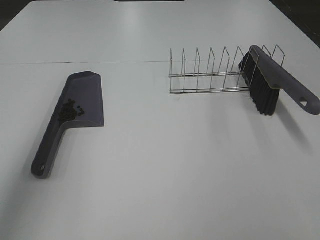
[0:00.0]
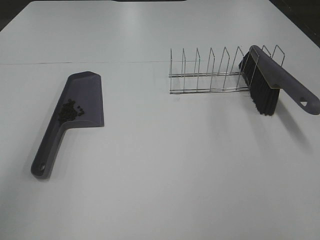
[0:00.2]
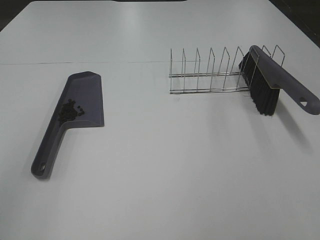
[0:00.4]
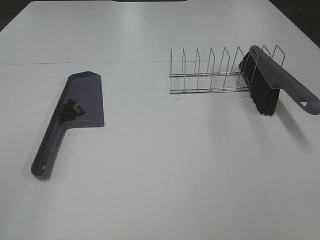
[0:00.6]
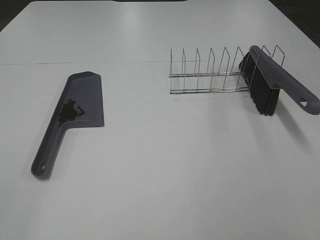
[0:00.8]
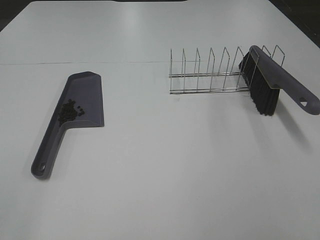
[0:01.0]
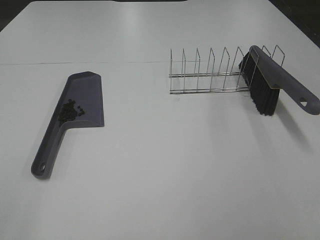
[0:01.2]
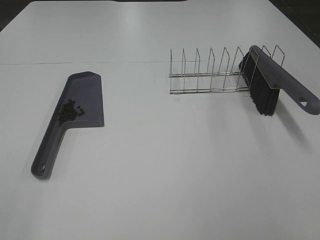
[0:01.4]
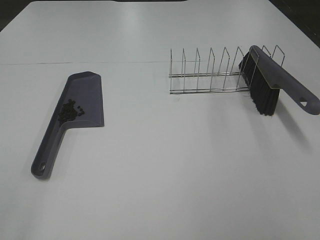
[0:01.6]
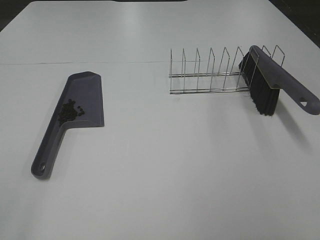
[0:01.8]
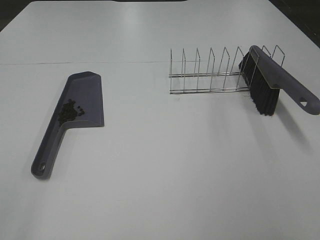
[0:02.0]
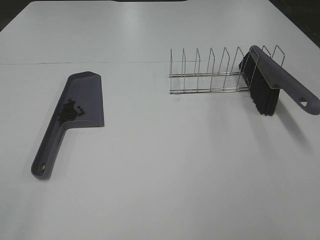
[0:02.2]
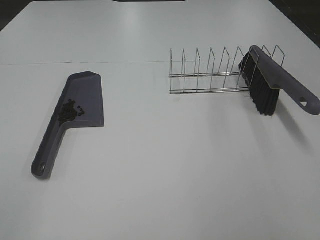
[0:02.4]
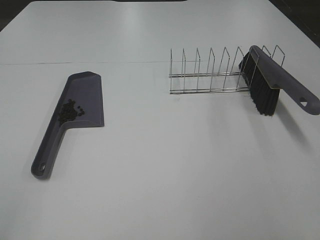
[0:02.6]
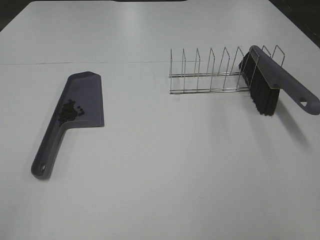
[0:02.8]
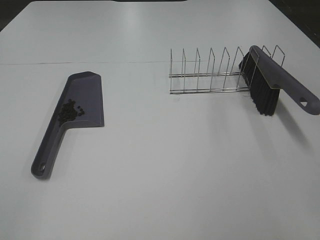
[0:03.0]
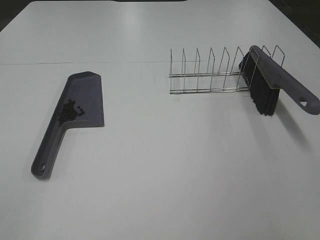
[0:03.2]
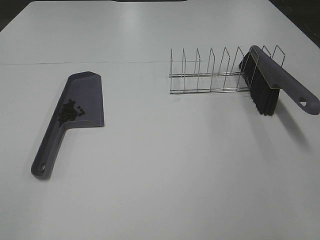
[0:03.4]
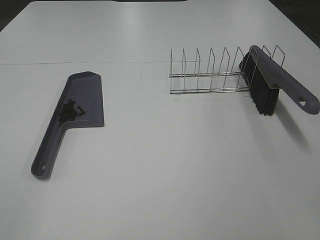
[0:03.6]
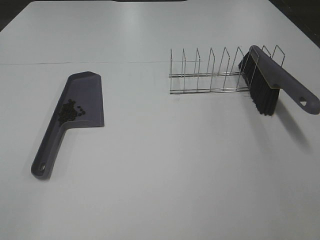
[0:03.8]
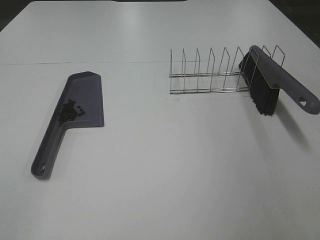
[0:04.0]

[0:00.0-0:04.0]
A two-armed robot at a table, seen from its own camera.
Task of the whole recording: Sweep Coffee Bean.
0:00.0 to 0:01.4: The left gripper moves backward and downward, roughly 25 cm.
0:02.6 to 0:04.0: Both grippers stay about where they are.

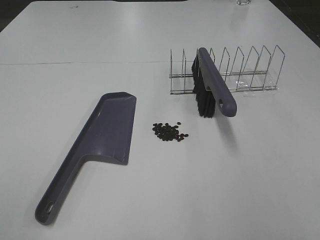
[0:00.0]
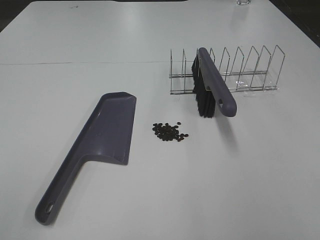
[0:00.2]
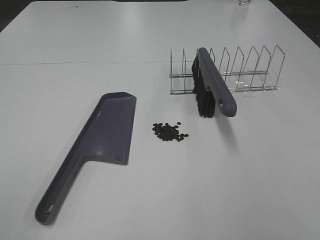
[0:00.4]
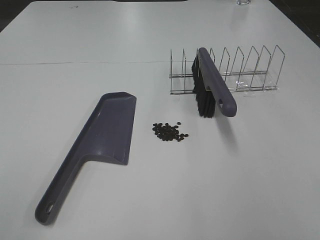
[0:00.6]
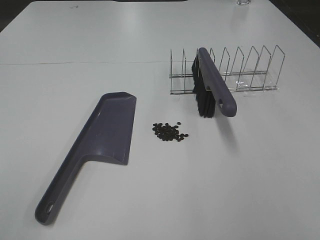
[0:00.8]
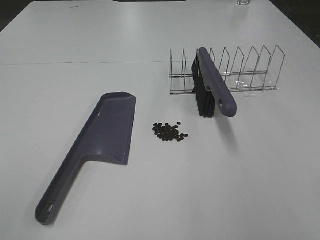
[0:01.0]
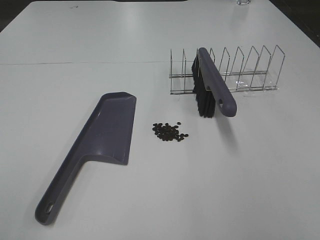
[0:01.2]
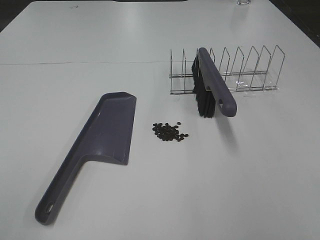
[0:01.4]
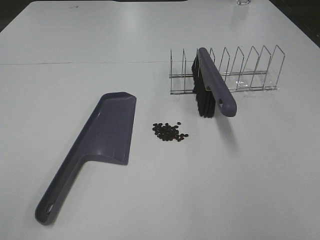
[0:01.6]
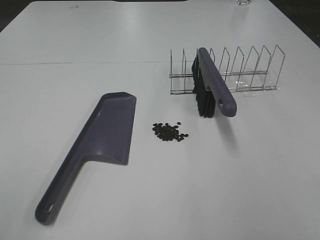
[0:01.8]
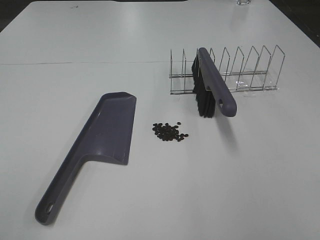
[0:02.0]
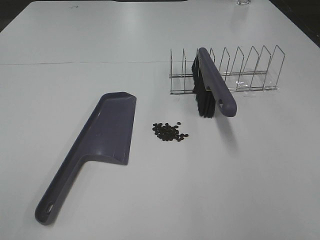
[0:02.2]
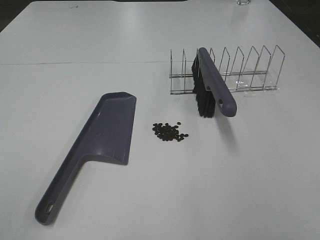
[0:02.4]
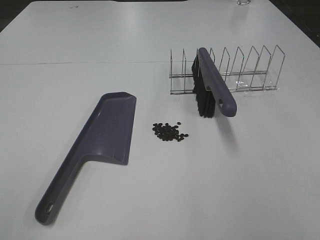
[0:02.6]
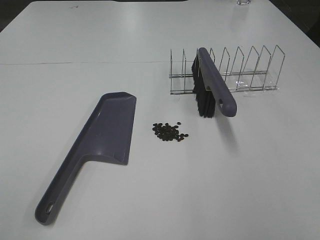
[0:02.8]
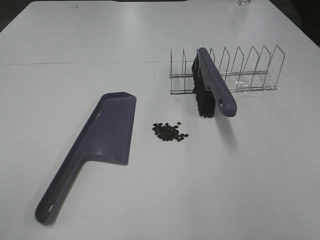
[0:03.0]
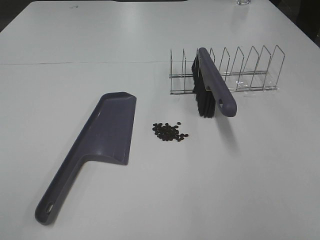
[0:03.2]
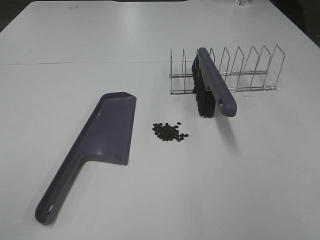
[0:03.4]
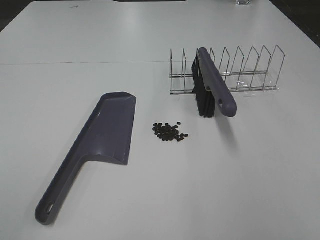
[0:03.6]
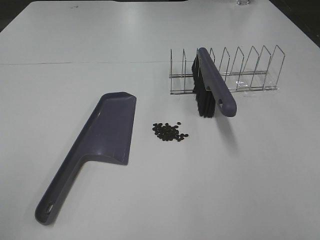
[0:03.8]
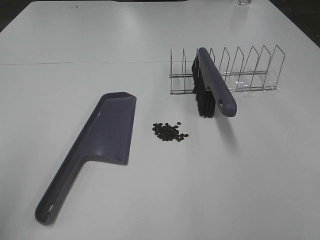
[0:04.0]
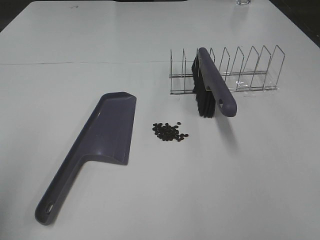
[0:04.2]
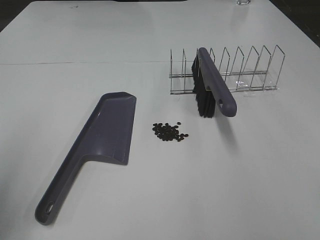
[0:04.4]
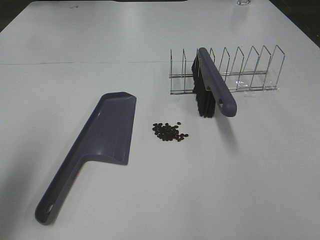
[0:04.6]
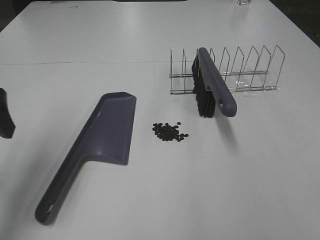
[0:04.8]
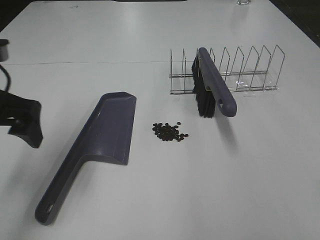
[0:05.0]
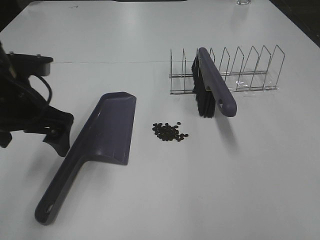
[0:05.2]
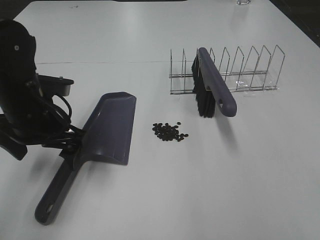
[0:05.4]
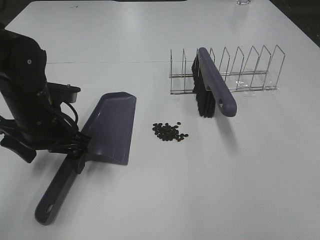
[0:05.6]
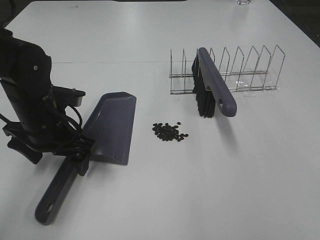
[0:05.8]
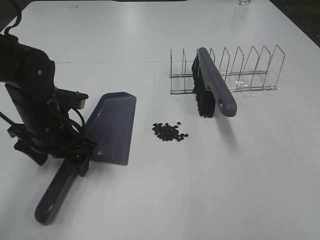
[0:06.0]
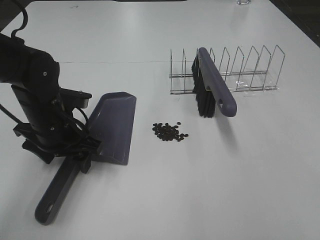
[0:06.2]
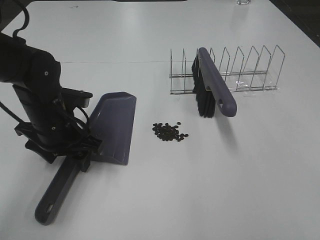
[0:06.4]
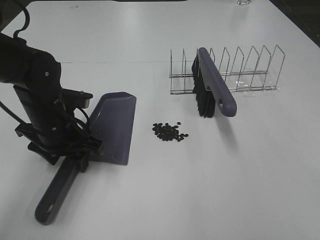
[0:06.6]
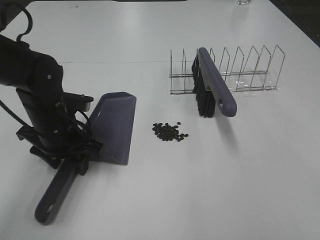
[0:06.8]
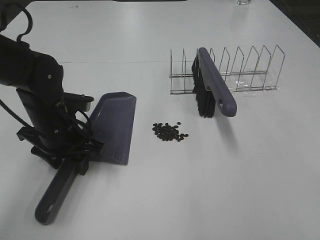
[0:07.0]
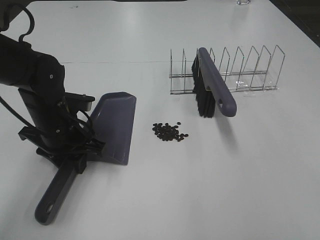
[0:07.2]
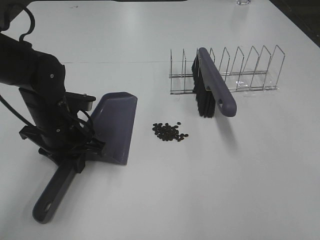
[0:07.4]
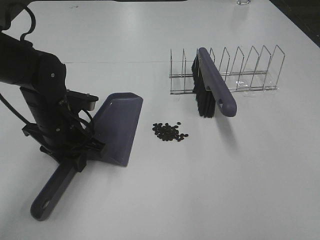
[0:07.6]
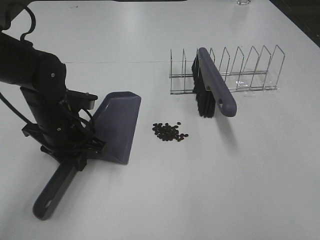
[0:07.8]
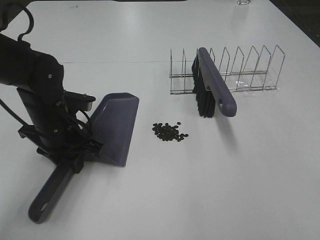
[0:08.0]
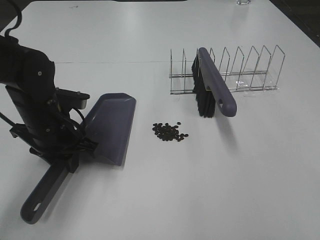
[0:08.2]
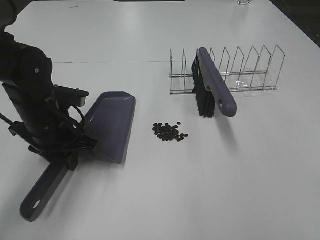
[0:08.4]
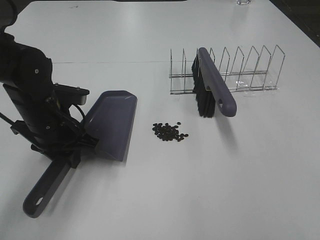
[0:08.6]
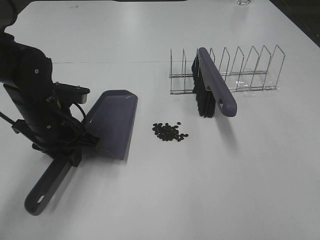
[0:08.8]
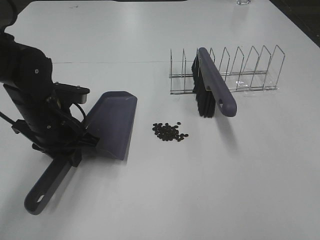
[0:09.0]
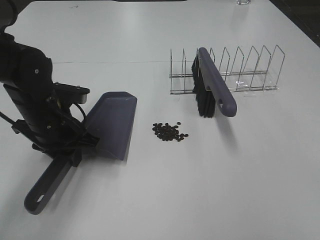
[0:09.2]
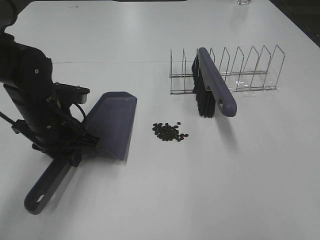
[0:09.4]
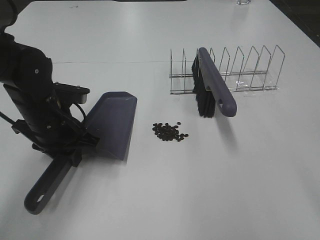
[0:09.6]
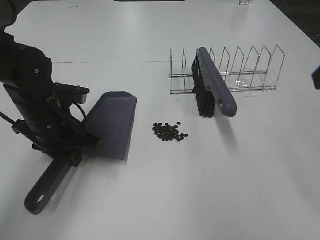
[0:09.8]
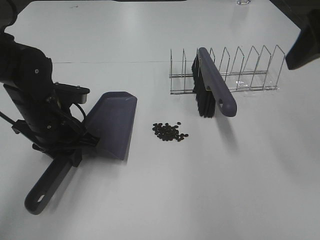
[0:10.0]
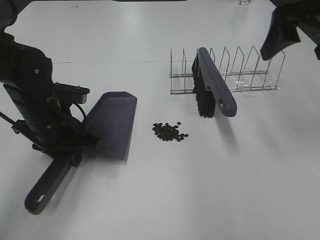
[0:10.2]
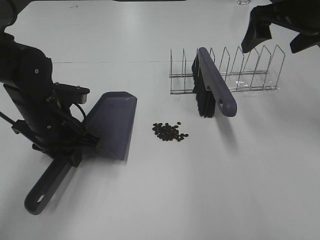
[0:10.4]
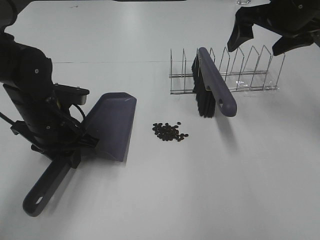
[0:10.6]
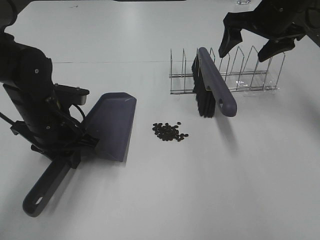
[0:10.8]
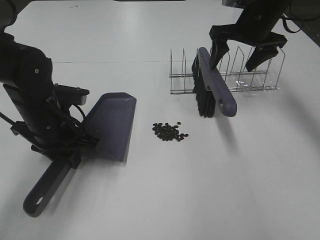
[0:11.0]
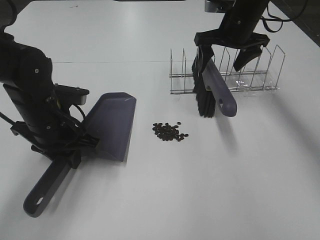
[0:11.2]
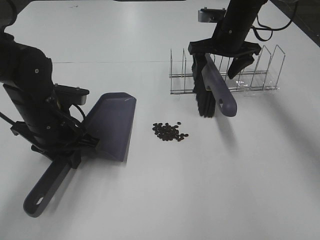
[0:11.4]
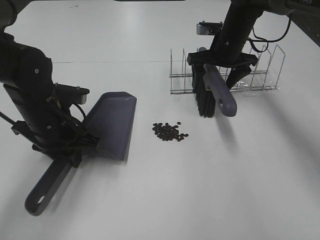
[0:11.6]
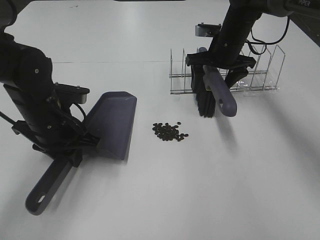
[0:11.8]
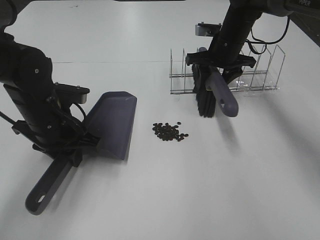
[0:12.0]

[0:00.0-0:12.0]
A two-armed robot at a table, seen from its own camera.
Task of the whole recording: Sweep Coffee Bean.
Step, 0:00.0 to 0:07.2: Left hand: grab the dustpan.
Step, 0:08.8 to 0:12.0: Right hand:grab the broom.
0:00.0 to 0:03.0: Both grippers stay put.
0:03.0 to 0:04.4: The left gripper moves forward, roughly 15 cm.
0:04.4 to 0:06.0: The left gripper heads downward, to the right and forward, covering roughly 25 cm.
0:06.0 to 0:07.6: The left gripper closes up.
0:07.6 to 0:09.0: The grippers make only small movements.
0:09.0 to 0:10.4: The right gripper shifts about 35 cm forward, and opens its fingers.
0:10.4 to 0:12.0: The right gripper travels downward, forward and to the left by some 20 cm, and closes.

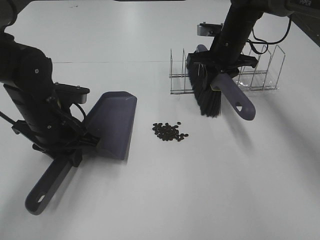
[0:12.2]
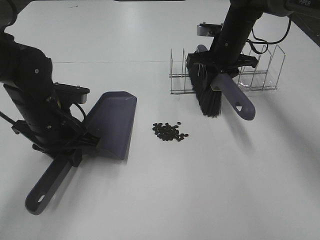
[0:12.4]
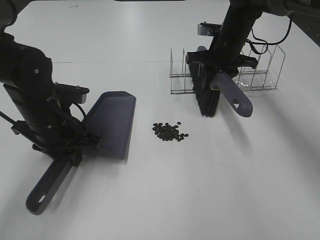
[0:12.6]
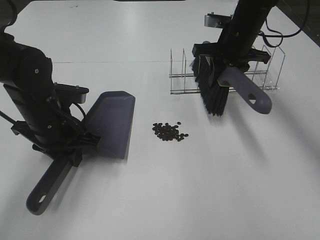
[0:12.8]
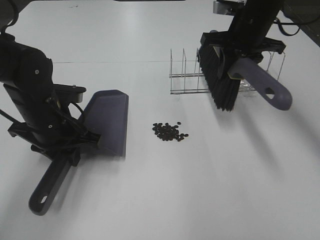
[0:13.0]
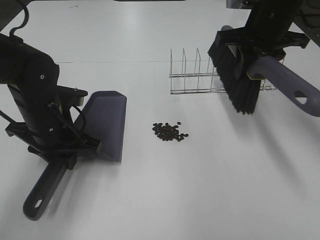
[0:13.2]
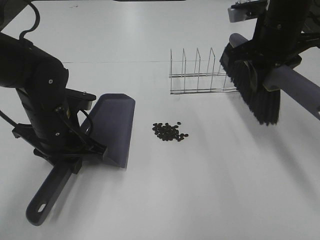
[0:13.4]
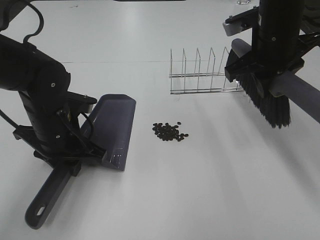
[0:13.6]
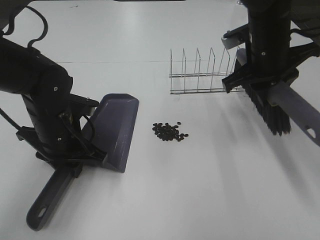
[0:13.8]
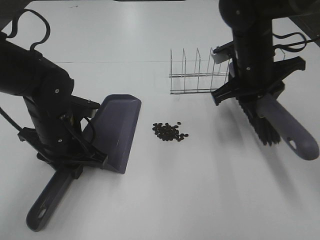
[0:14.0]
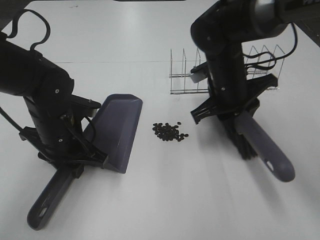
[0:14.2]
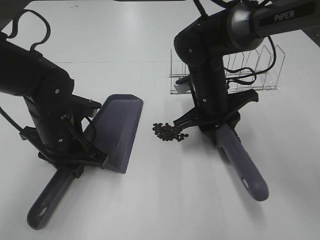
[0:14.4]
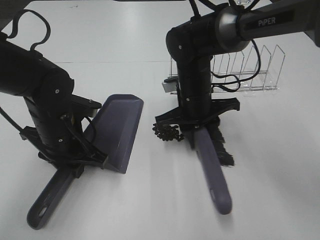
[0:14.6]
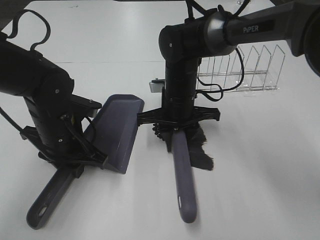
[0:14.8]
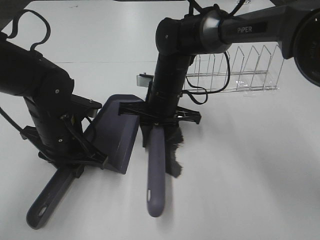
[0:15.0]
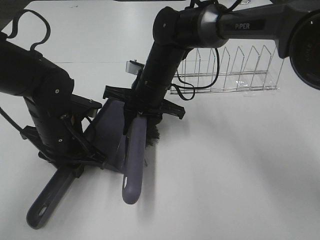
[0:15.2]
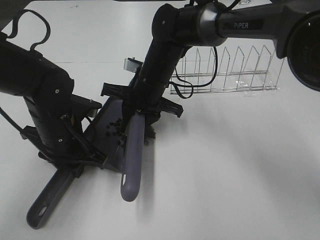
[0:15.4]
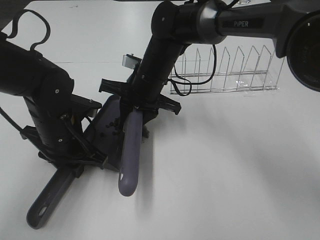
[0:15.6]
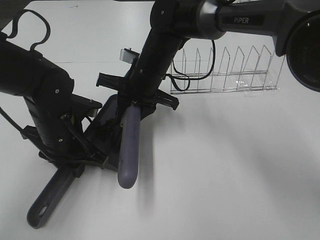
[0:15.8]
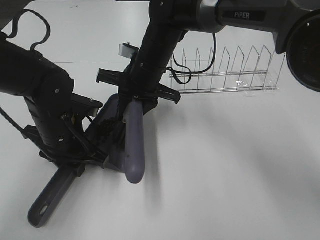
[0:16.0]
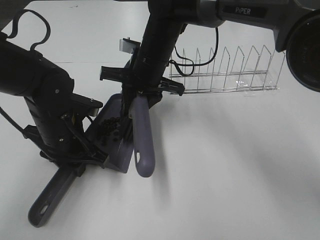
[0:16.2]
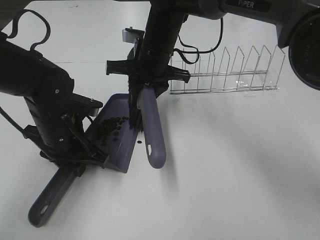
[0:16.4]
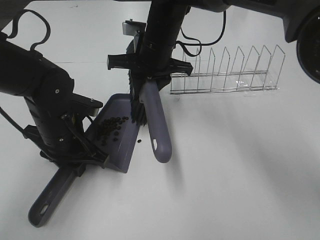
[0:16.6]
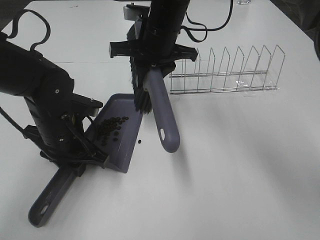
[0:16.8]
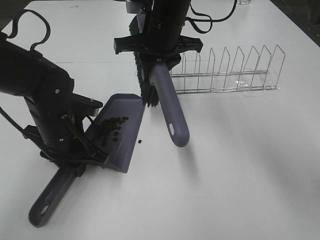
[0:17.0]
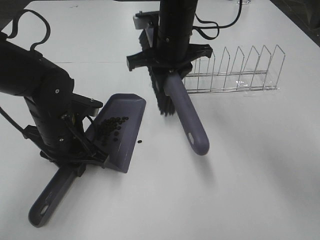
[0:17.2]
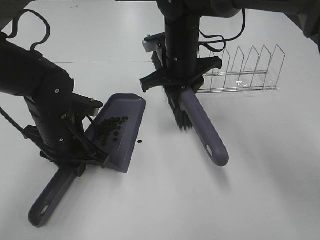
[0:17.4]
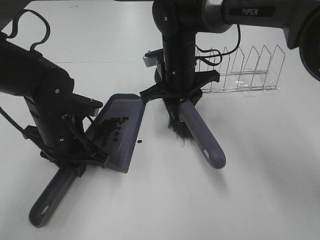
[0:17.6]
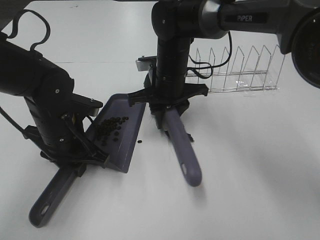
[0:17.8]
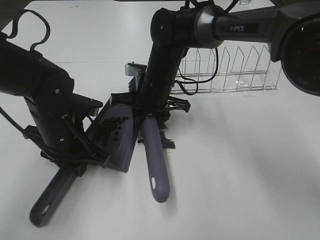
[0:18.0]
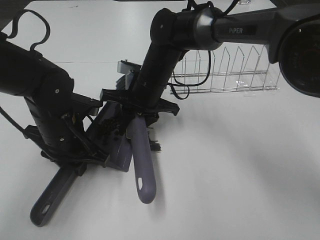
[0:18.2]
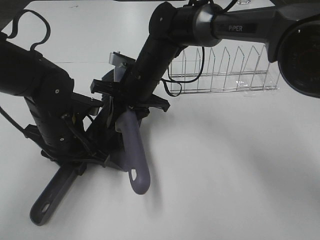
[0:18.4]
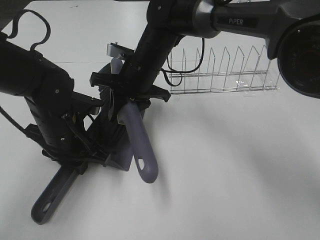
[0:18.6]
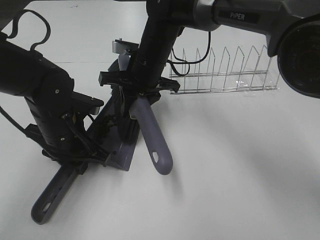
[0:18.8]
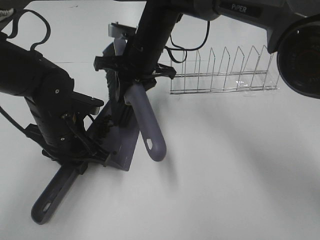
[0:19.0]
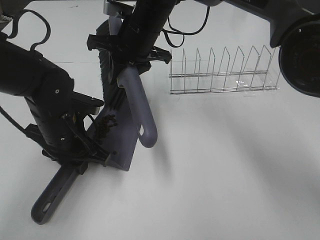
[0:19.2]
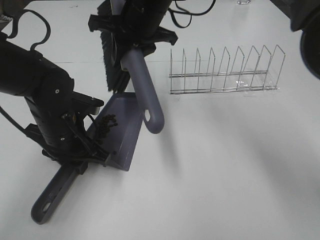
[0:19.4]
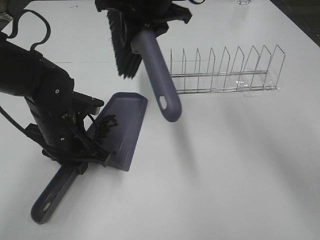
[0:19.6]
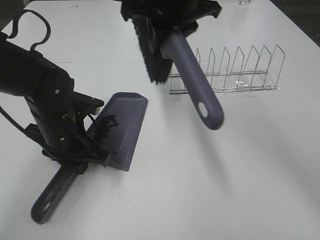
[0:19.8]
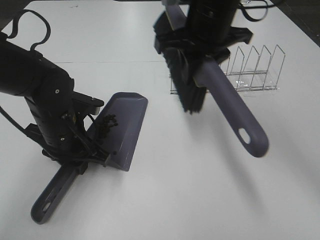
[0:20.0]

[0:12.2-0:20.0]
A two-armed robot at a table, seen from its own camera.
Task of the whole recording: Sweep Coffee Bean.
Step, 0:12.2 to 0:18.6: Right hand:sweep the coffee beans into the dustpan.
0:12.2 to 0:13.8: The right gripper shifts roughly 15 cm backward and upward.
0:13.8 to 0:15.4: The right gripper goes approximately 20 cm to the left and downward.
0:15.4 to 0:16.8: The right gripper goes about 10 cm upward.
0:16.8 to 0:18.4: The right gripper goes roughly 10 cm downward.
0:18.4 to 0:20.0: The right gripper goes roughly 15 cm upward and to the right.
